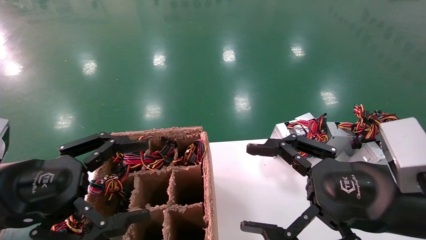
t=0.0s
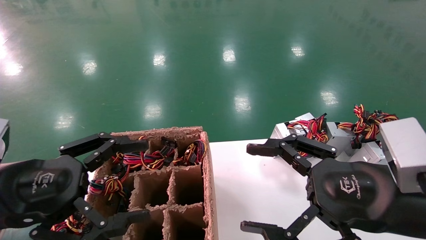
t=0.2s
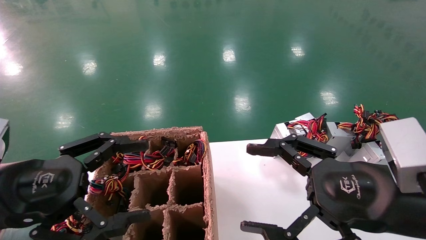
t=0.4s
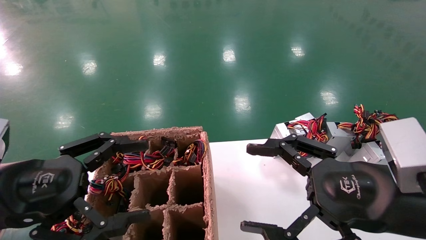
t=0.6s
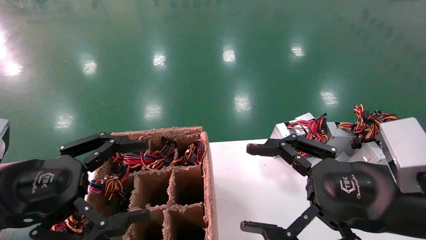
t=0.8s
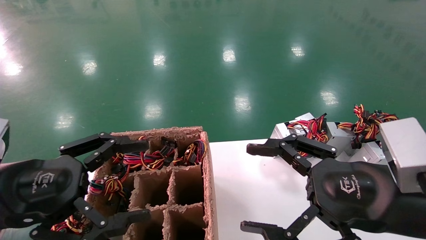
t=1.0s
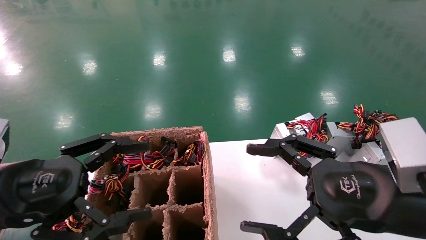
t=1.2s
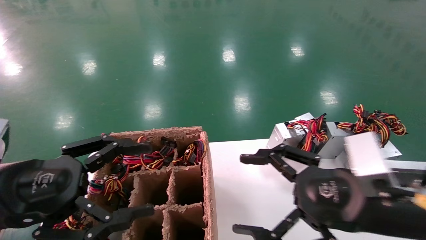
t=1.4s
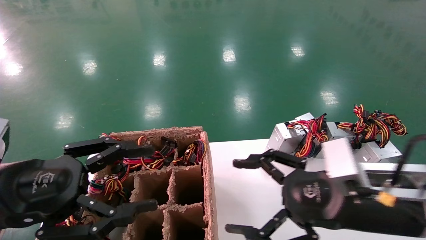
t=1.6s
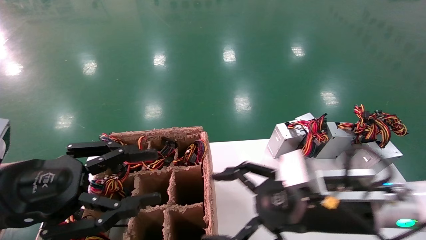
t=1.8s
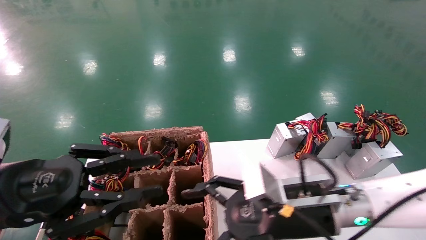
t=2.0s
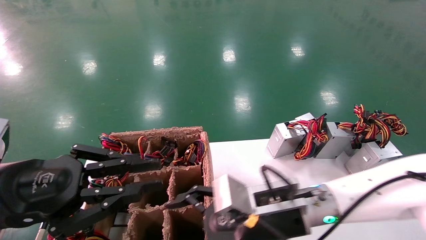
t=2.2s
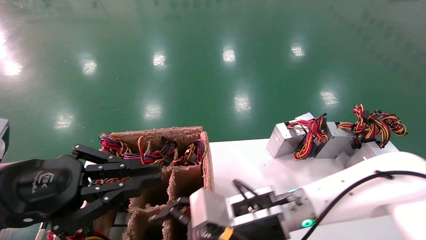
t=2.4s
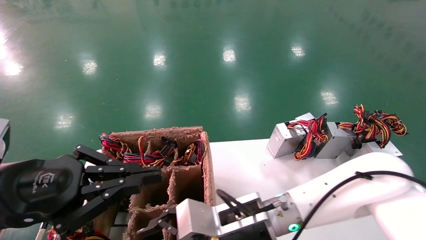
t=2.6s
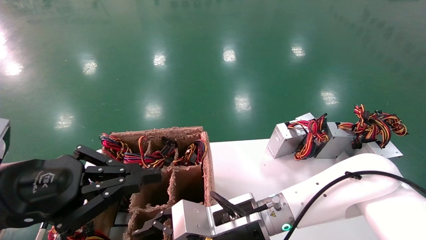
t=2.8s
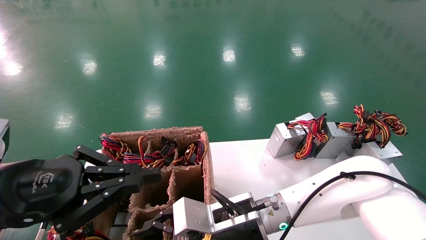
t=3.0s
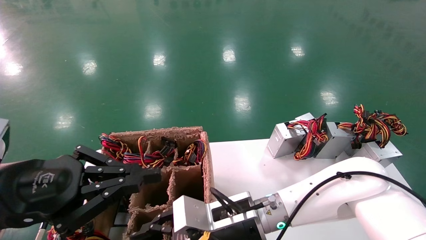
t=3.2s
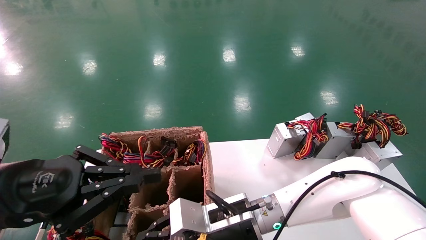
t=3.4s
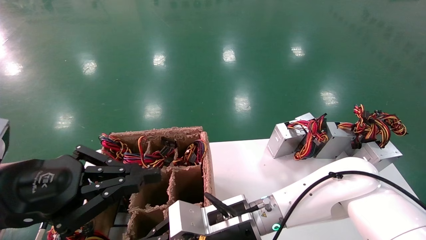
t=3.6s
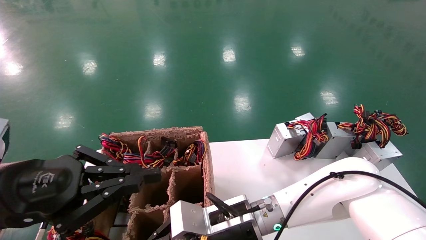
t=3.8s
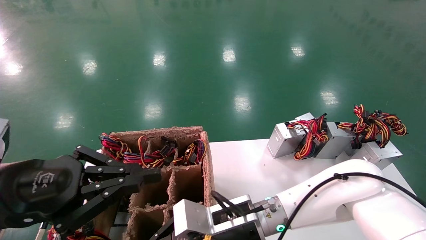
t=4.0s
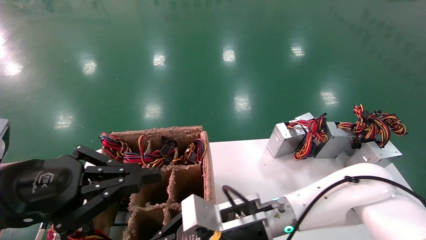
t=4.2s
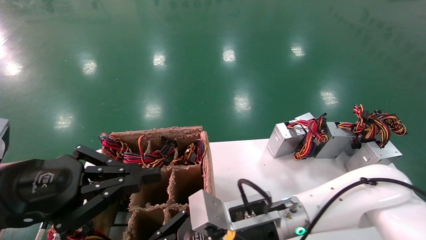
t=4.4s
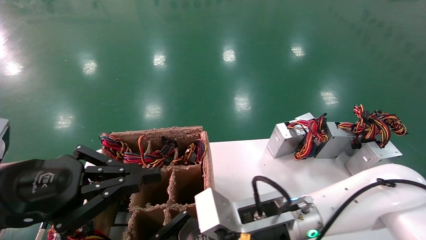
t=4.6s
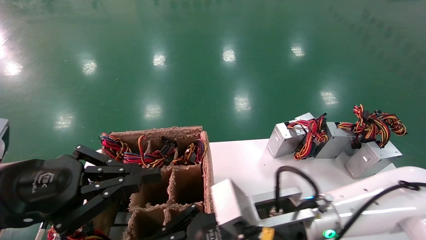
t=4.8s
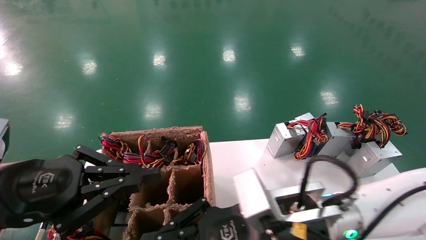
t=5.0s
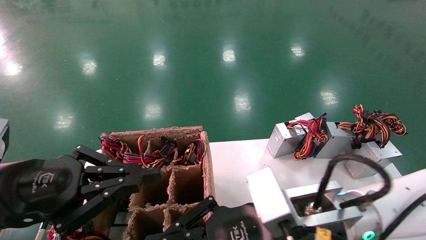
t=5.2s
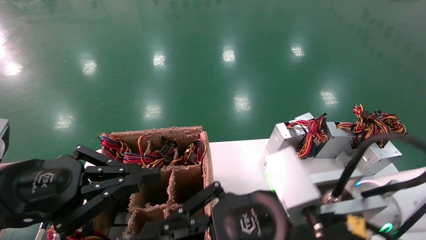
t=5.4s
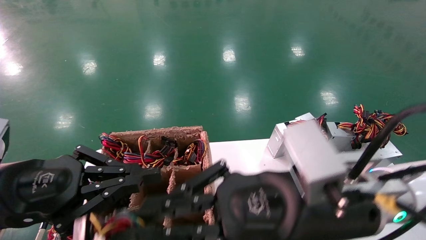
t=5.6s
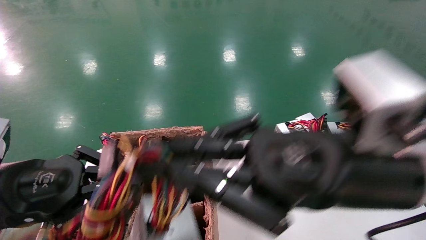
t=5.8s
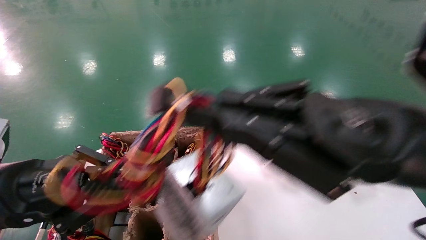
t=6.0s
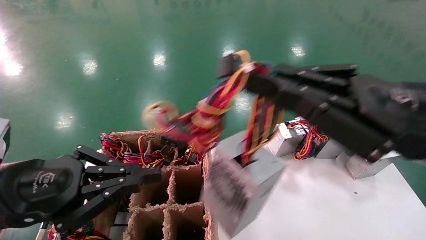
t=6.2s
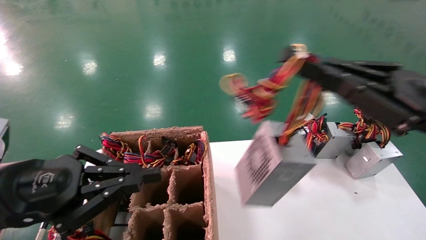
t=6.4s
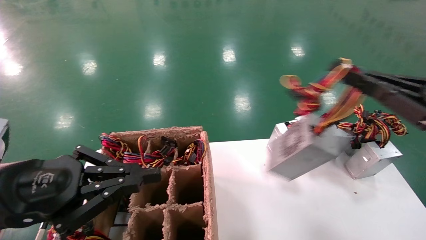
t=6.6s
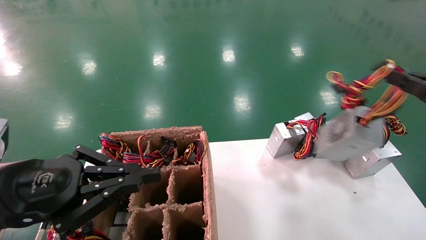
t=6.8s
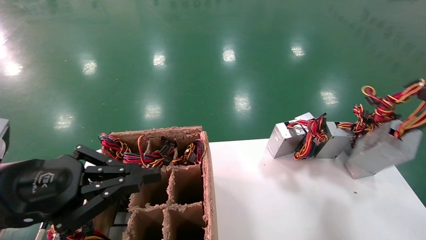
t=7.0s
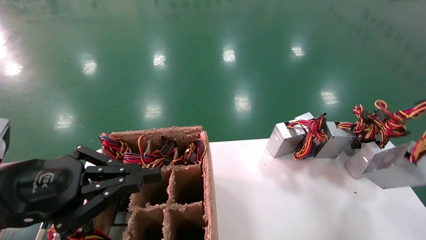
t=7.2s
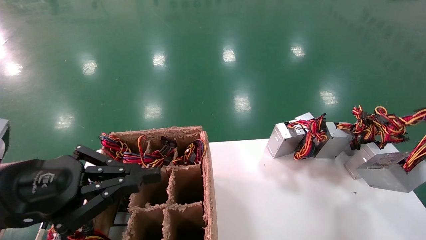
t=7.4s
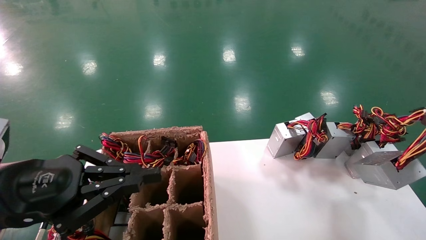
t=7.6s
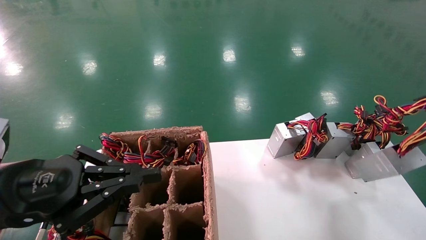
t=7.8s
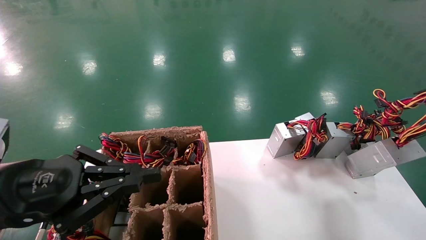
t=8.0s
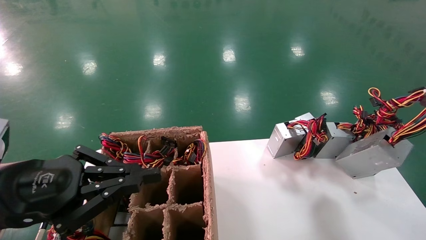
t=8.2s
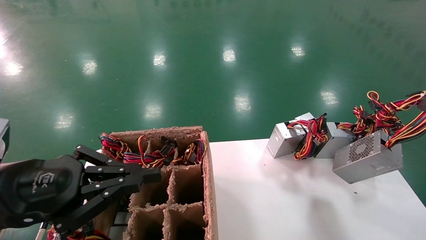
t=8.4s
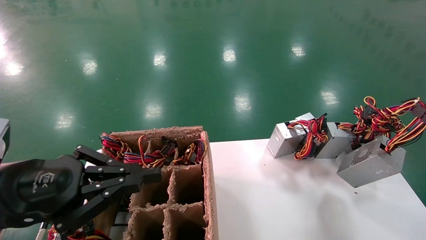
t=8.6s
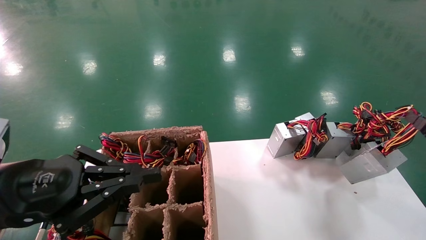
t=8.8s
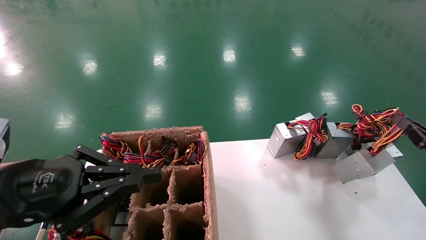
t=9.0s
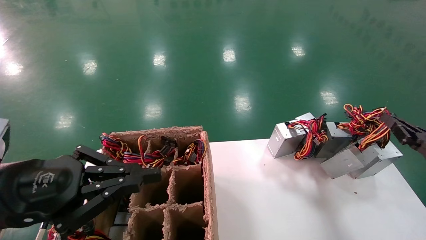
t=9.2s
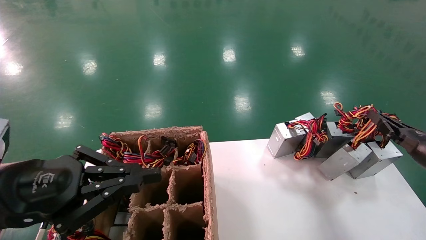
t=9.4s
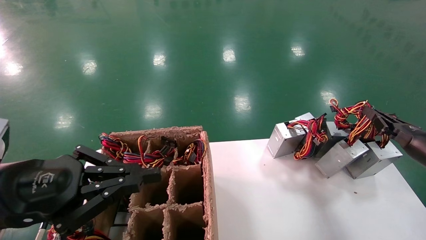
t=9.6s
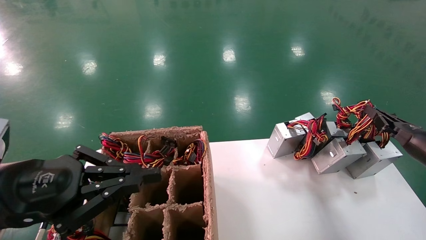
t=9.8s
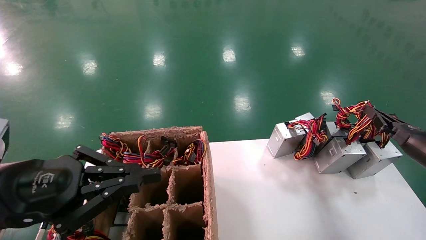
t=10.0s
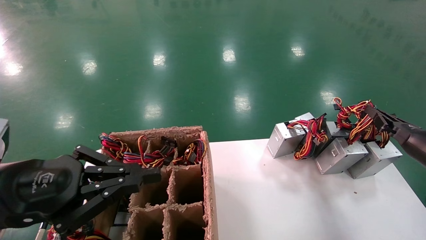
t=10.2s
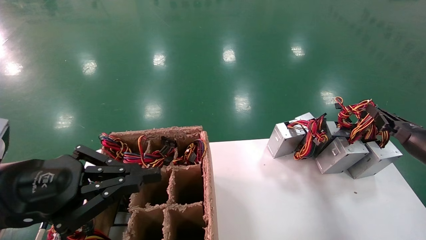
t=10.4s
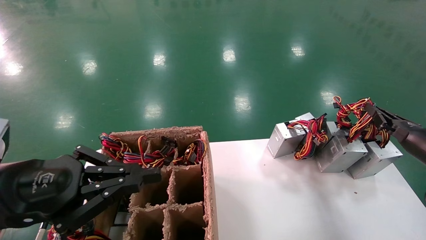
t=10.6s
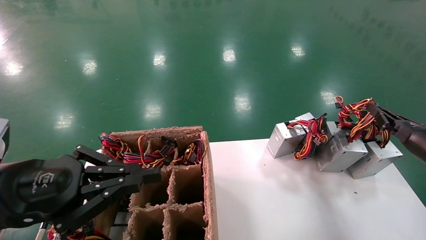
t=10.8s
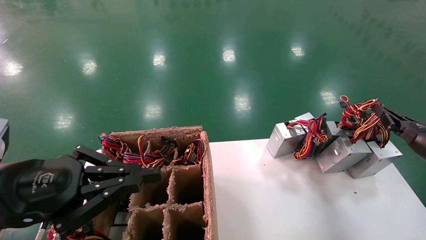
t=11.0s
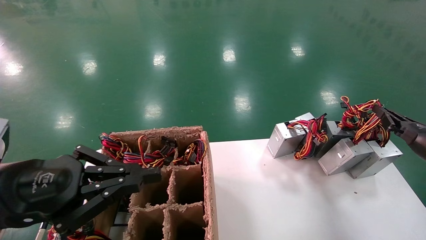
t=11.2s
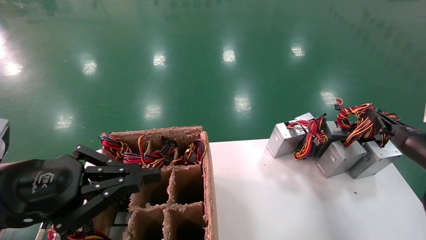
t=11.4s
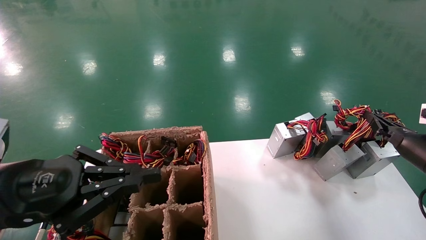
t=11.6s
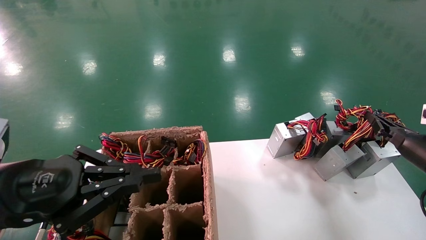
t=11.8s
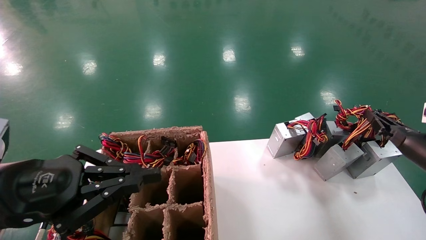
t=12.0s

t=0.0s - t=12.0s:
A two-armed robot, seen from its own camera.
Step, t=1.6s - t=4.0s: Grab the main unit power supply from the containment box.
t=0.0s - t=1.6s: The right gripper moves about 5 cm.
t=1.6s - t=3.0s: The left gripper closes its fingers; the right gripper travels to the left and downward by approximately 20 cm.
t=3.0s - t=4.4s: The right gripper closes its fingers.
t=4.4s - t=6.0s: The right gripper is displaced upward, to the right and backward by about 25 cm.
t=6.0s - t=7.6s: The right gripper heads to the right, covering approximately 30 cm.
t=7.6s - t=9.0s: The right gripper travels forward by approximately 5 cm.
t=9.0s - t=10.4s: The right gripper shifts about 10 cm forward.
t=10.4s - t=12.0s: There are only small adjustments of the grippers.

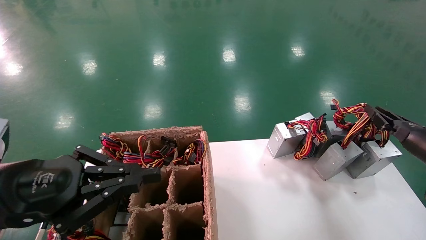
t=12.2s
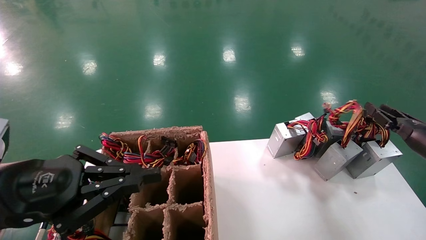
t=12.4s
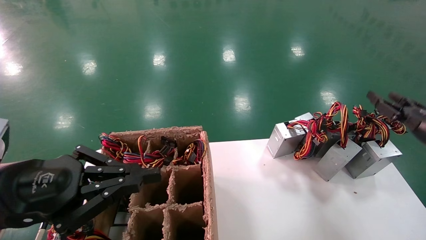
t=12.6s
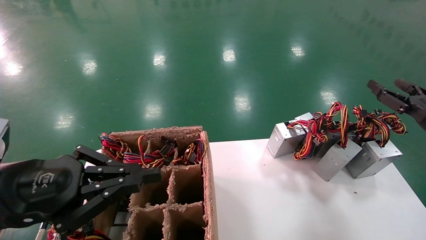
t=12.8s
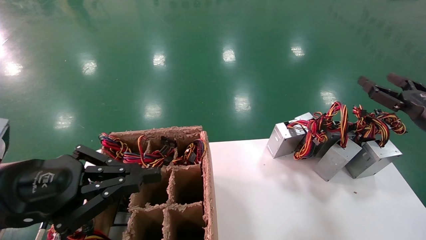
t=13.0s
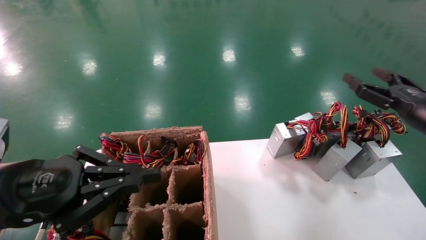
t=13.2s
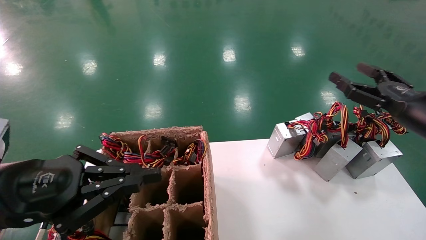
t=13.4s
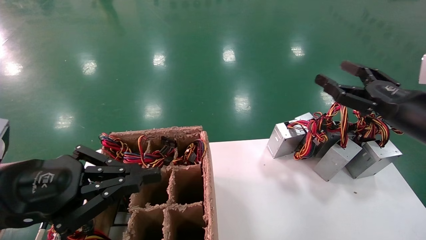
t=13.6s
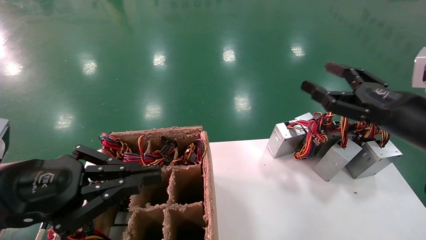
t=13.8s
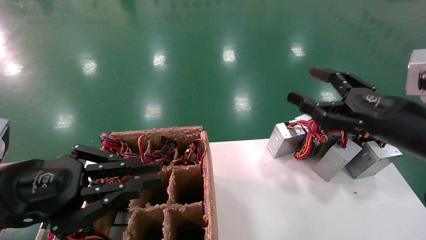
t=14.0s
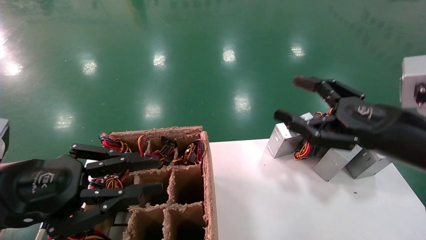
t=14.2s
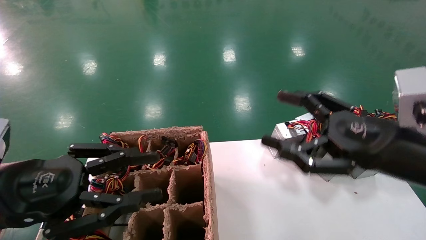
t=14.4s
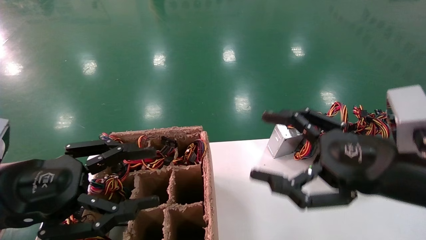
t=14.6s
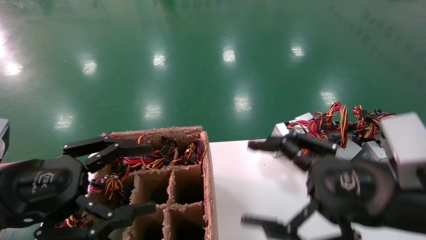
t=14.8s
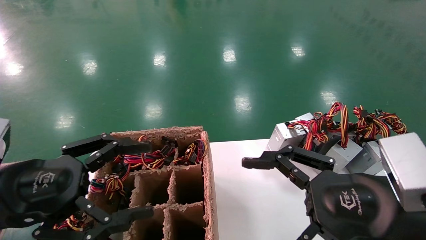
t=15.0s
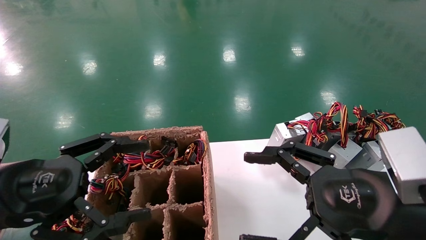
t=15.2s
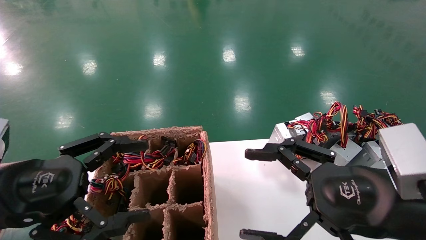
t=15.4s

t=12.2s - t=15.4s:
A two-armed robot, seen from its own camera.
t=12.2s - t=13.8s: The right gripper is displaced to the left, upward and backward by about 20 cm, and opens.
t=13.8s - t=15.4s: The right gripper shifts approximately 15 cm backward and to the left. The left gripper opens its fingers.
